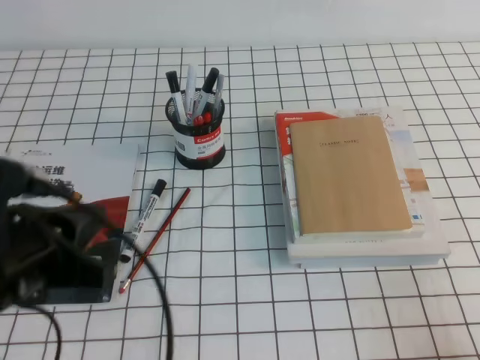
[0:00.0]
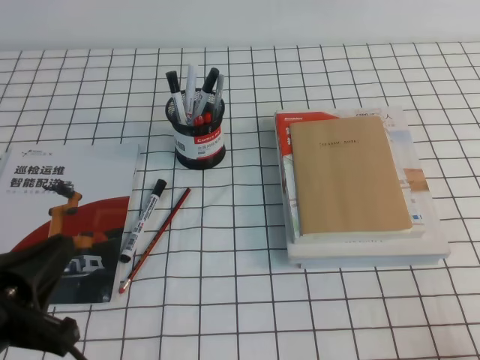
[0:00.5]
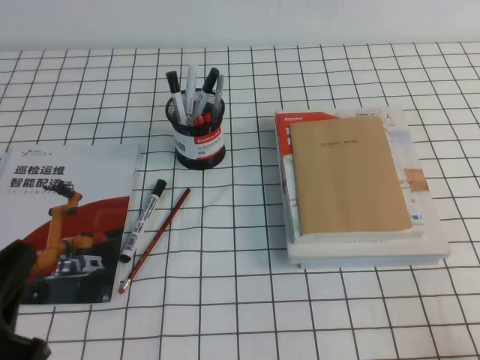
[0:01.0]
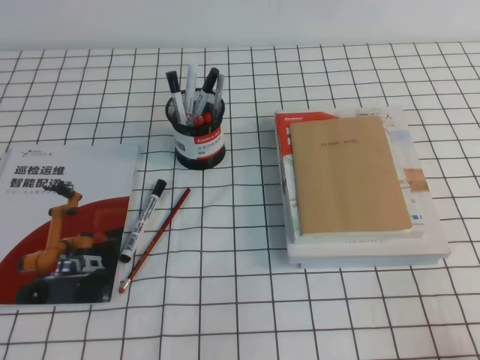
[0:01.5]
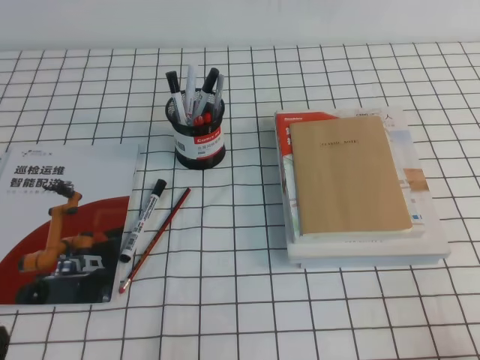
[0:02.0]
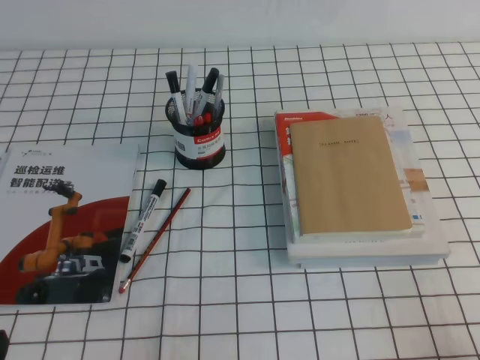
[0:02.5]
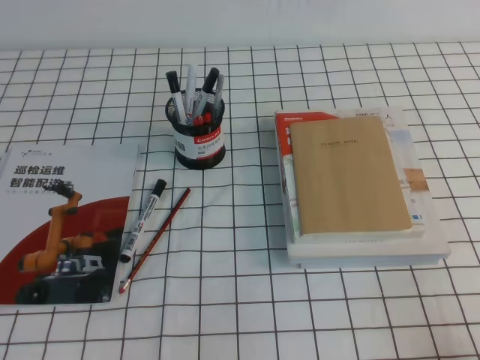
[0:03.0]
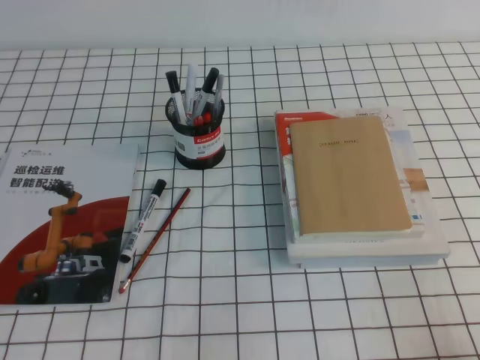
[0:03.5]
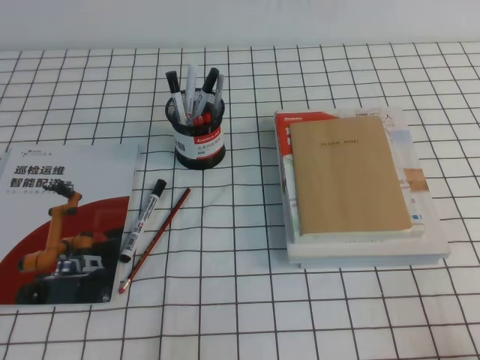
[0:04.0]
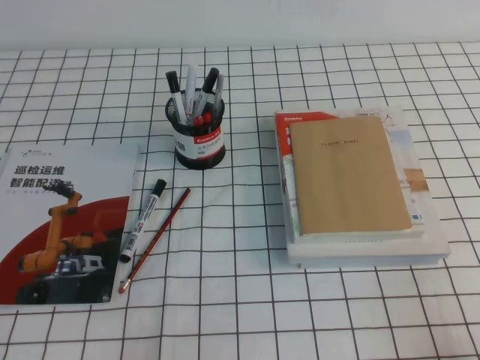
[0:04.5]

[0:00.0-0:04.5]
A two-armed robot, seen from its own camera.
Step, 0:00.0 to 0:04.5: Pick up the pen from the pen holder.
0:00.0 to 0:02.0: The left gripper moves downward, backward and to the left, about 15 cm.

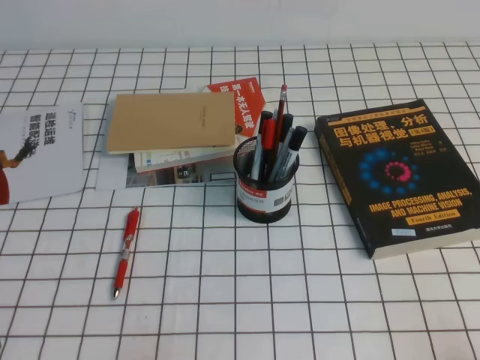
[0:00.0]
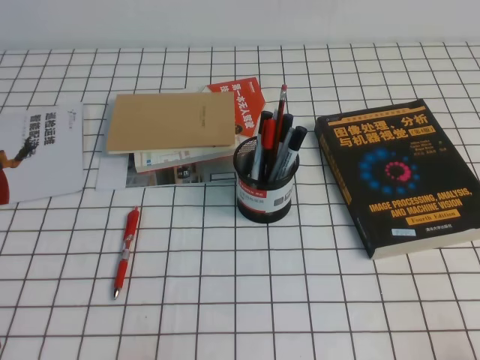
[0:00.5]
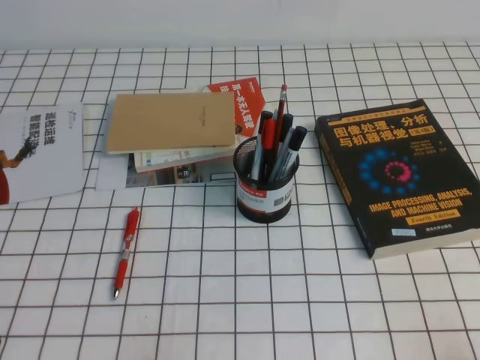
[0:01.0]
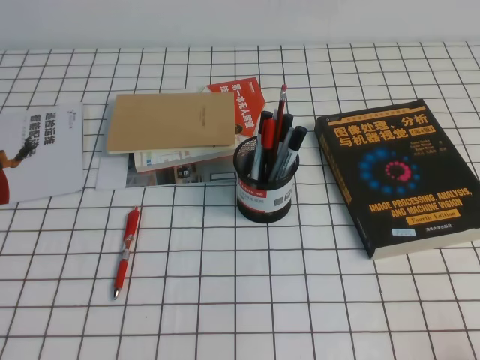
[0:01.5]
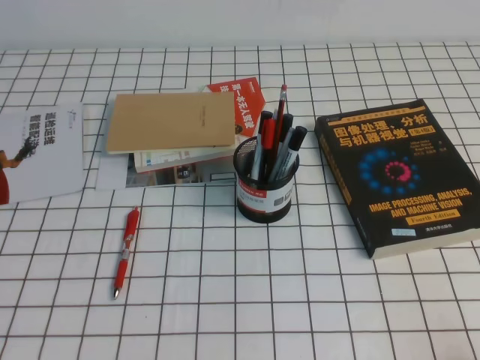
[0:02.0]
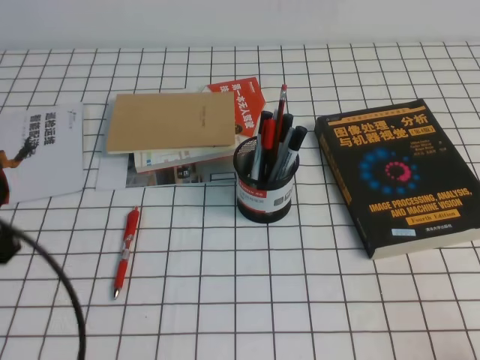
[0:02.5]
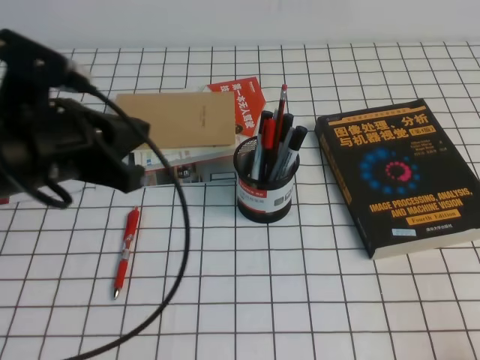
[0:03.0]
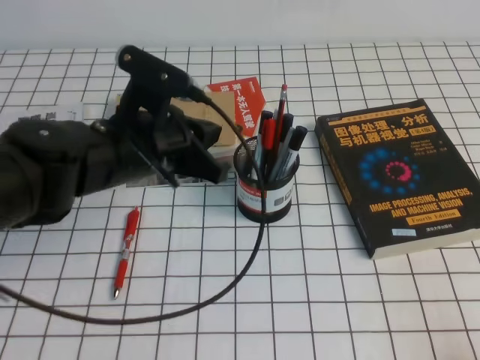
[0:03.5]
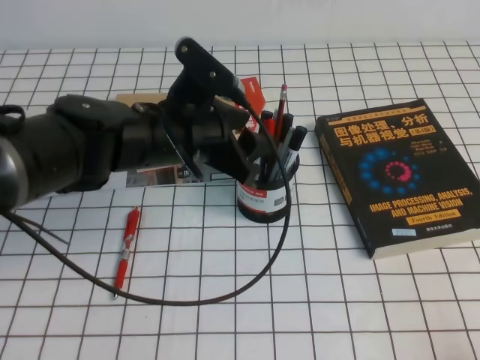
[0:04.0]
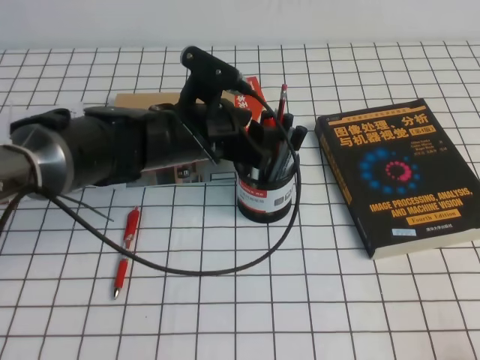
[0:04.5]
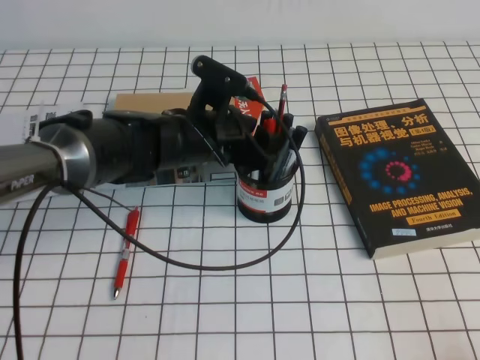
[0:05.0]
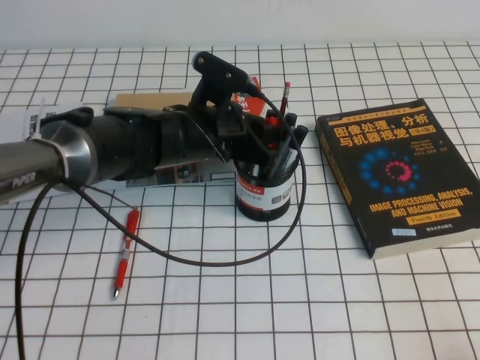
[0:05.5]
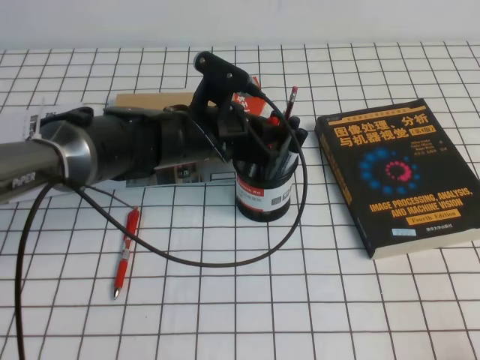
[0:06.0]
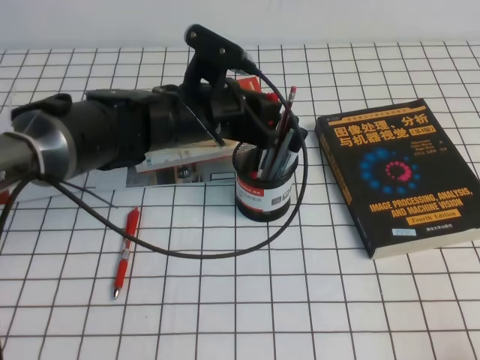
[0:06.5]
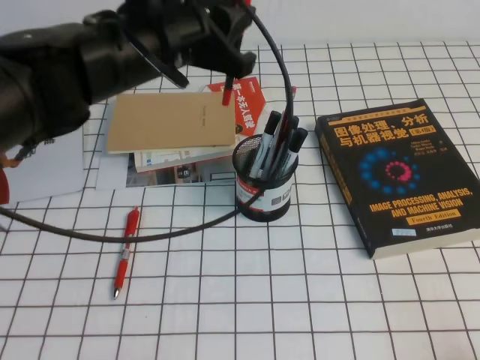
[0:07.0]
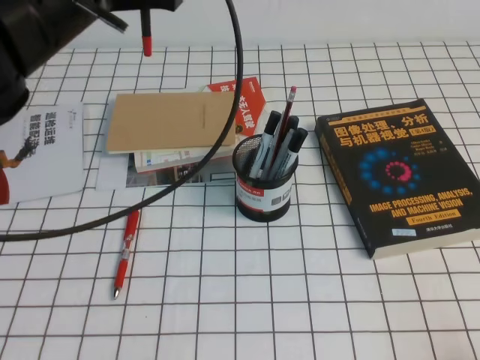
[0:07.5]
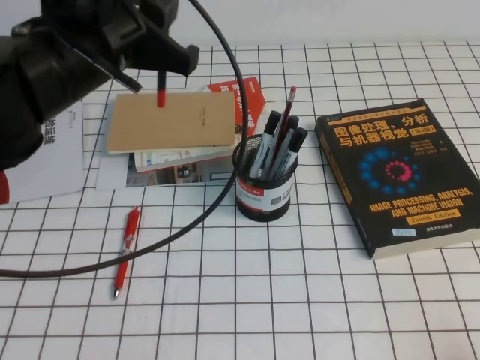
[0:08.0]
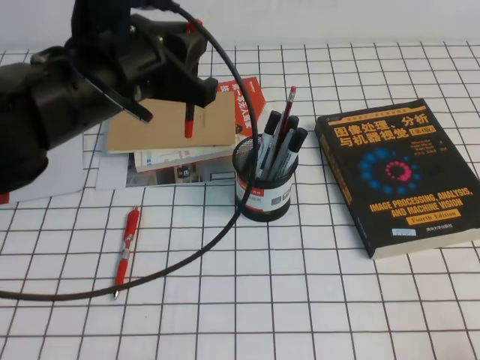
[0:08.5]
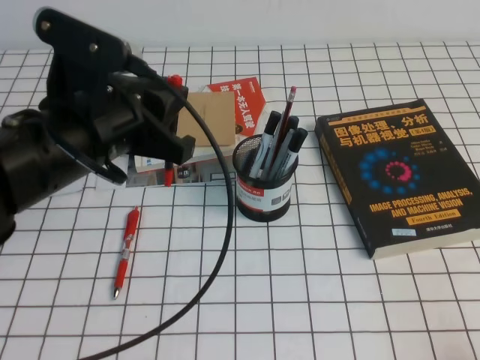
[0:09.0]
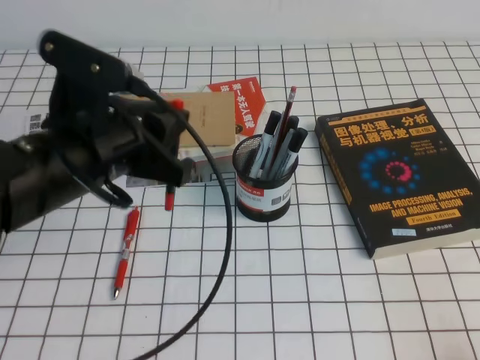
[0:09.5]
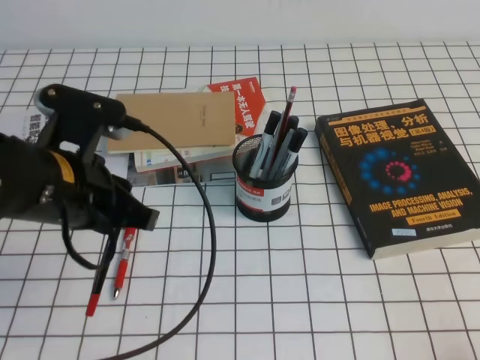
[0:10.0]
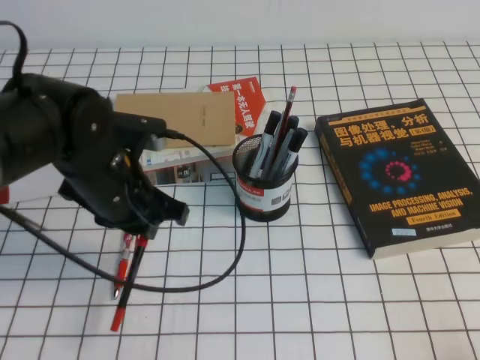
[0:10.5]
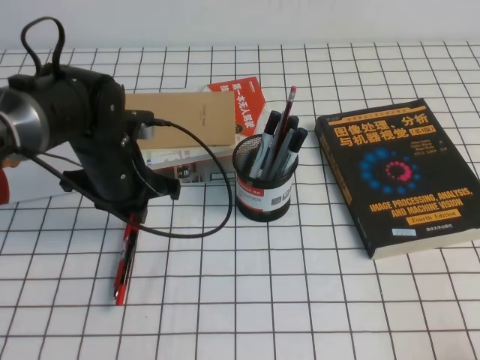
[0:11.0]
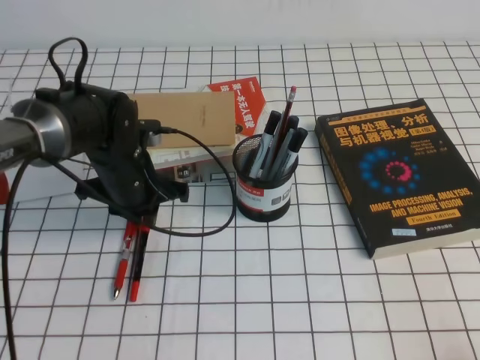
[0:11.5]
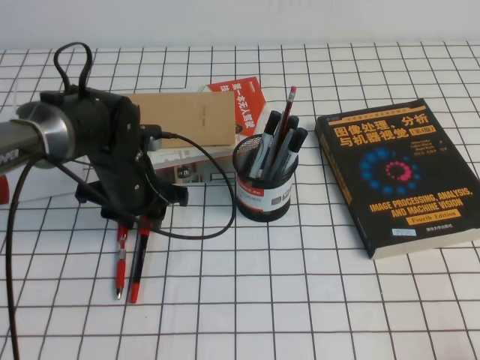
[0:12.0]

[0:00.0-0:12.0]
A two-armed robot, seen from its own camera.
0:02.0 to 0:04.0: The left gripper shifts about 35 cm forward and to the right, and opens.
0:04.0 to 0:06.0: The left gripper changes place by some 5 cm, and closes up.
0:06.0 to 0:08.0: The left gripper shifts some 20 cm upward, to the left and backward.
0:08.0 to 0:10.0: The left gripper is displaced downward and backward by approximately 10 cm.
0:10.0 to 0:12.0: The left gripper moves forward and downward, approximately 15 cm, and opens up.

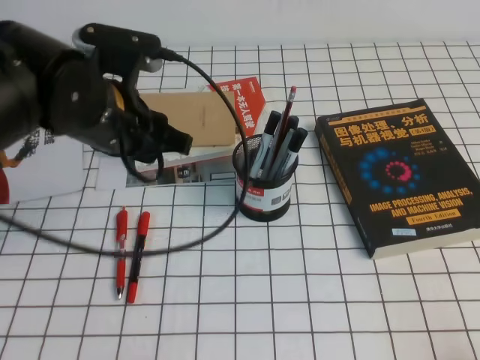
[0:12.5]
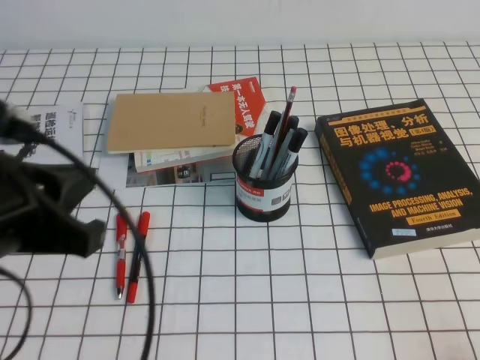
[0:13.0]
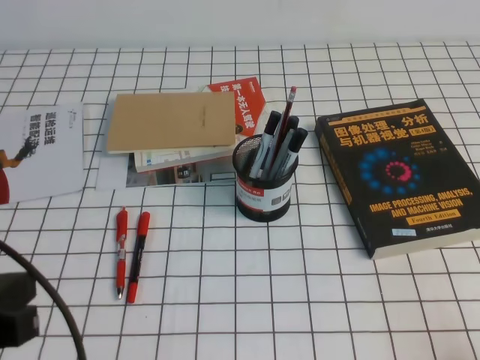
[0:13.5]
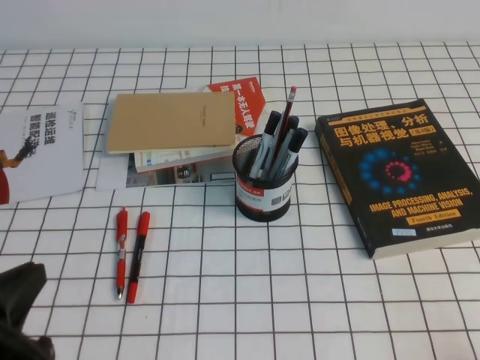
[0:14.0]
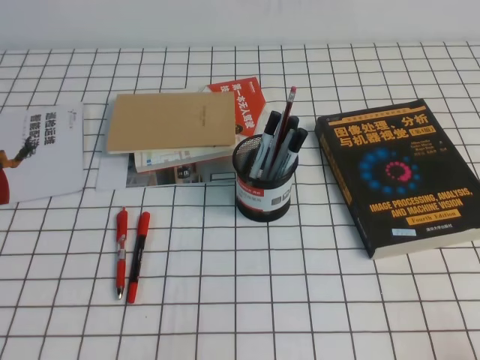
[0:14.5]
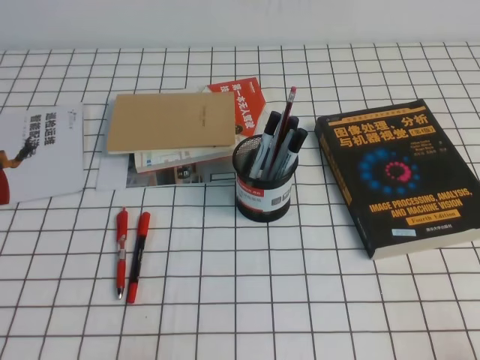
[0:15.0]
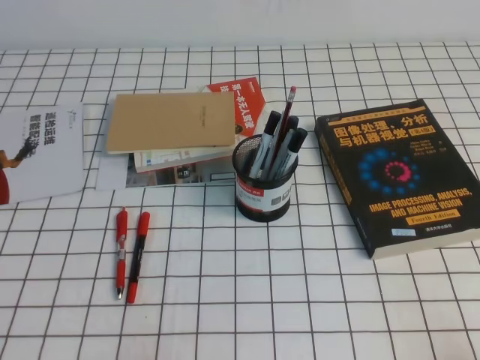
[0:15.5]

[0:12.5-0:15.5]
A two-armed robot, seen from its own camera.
Step, 0:12.5 to 0:15.5: Pick up the pen from the pen holder.
0:12.5 to 0:14.0: The left gripper moves backward and to the left, about 25 cm, and closes its fingers.
0:14.0 to 0:15.5: The left gripper goes roughly 10 cm downward.
